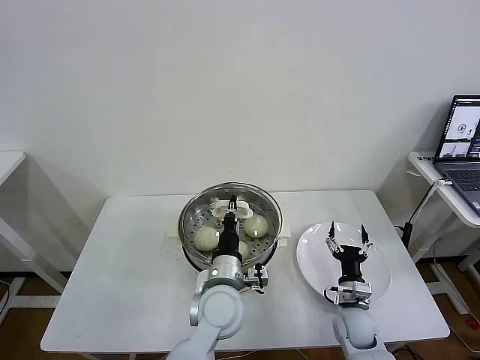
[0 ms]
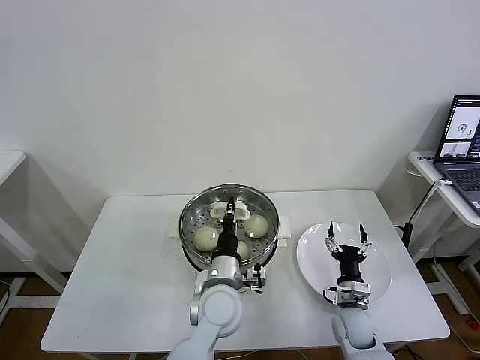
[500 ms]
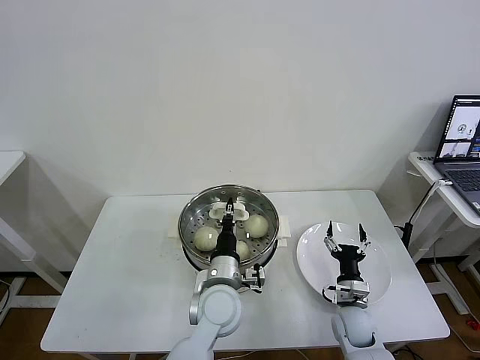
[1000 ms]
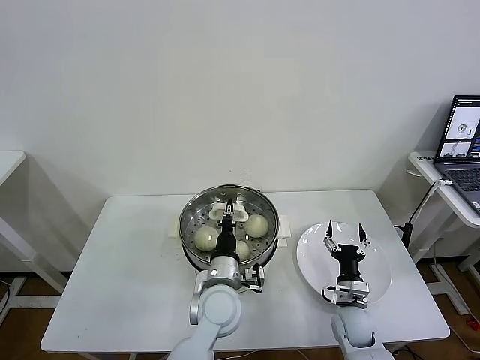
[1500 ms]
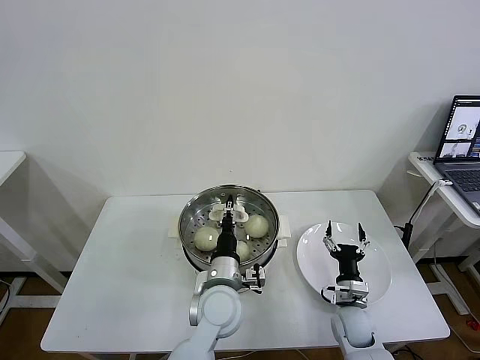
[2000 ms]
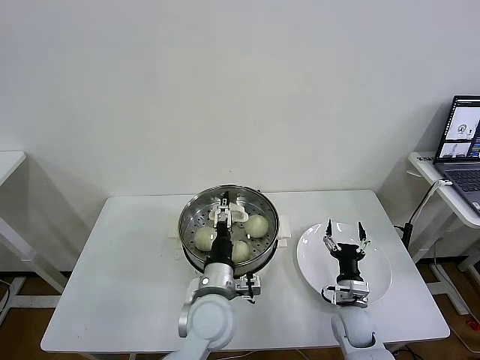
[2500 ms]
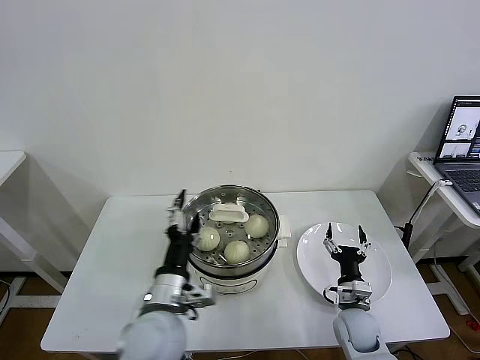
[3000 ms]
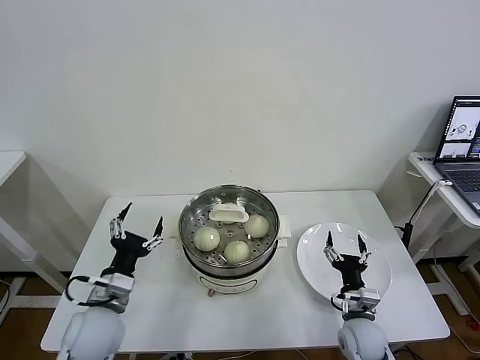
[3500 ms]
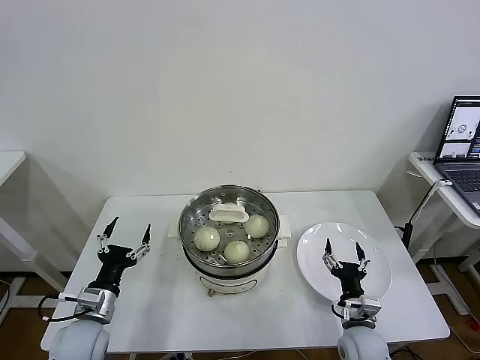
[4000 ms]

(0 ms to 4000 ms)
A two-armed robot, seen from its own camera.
Task of the whole recording: take steamed baozi put them in steamer then cover it.
Step, 0 ms - 2500 ms: Place the pot lid on the steamer with left gripper.
0 ms - 2000 ms: The grippers stay close to where they were, moving slightly.
2000 ms - 4000 ms: The right gripper moves backward, approximately 5 cm; the left gripper shifts some 25 cm to the left, and opens.
